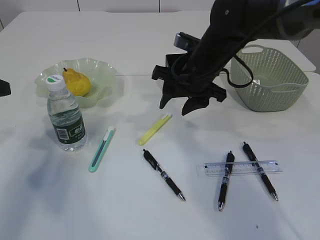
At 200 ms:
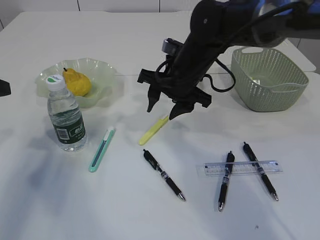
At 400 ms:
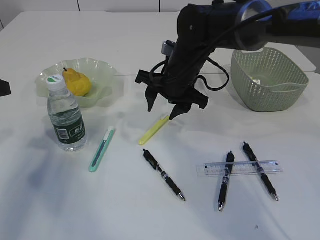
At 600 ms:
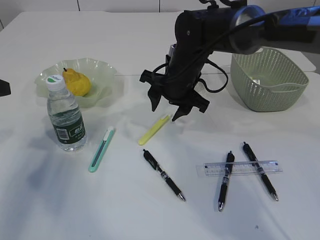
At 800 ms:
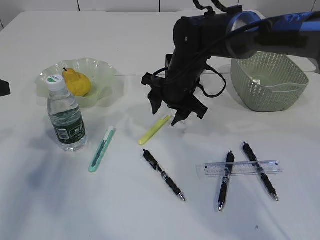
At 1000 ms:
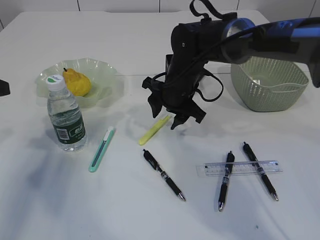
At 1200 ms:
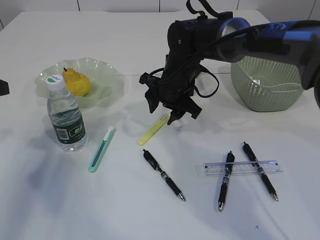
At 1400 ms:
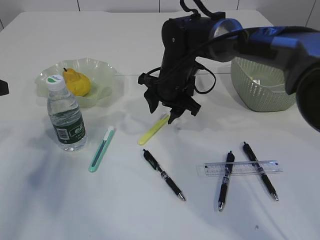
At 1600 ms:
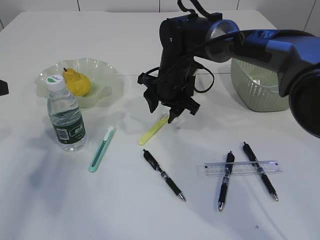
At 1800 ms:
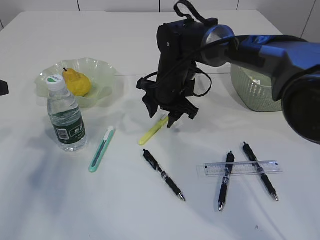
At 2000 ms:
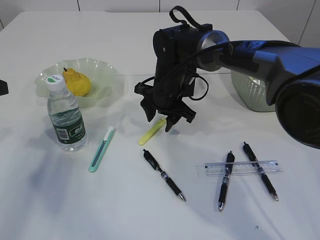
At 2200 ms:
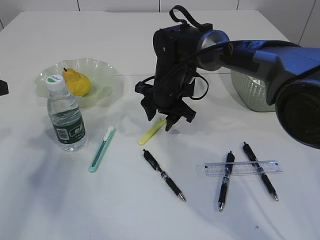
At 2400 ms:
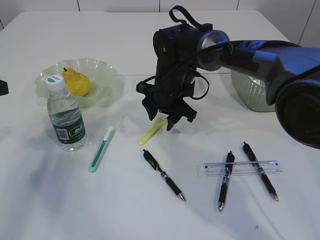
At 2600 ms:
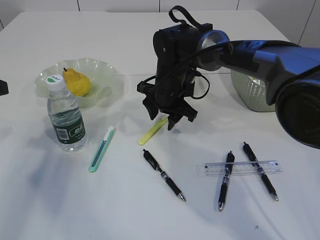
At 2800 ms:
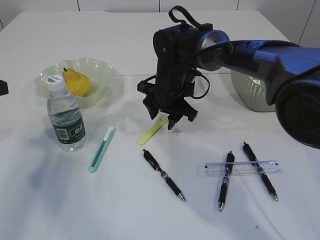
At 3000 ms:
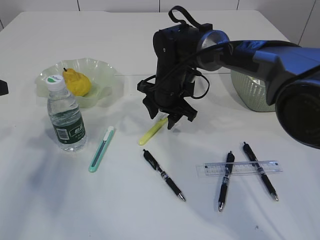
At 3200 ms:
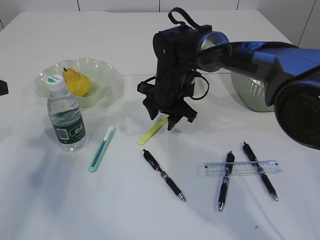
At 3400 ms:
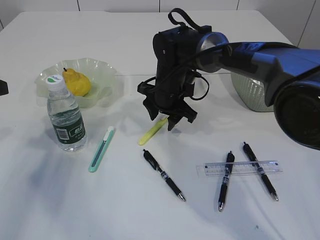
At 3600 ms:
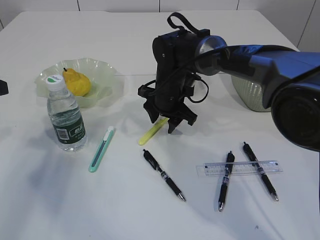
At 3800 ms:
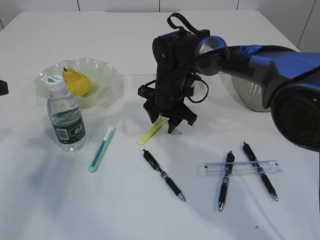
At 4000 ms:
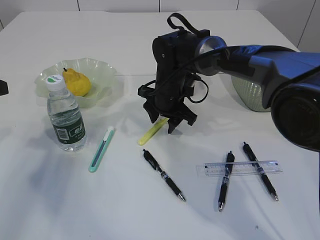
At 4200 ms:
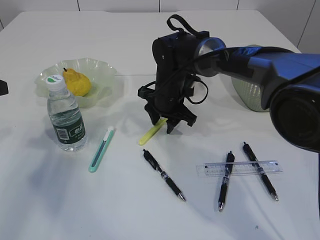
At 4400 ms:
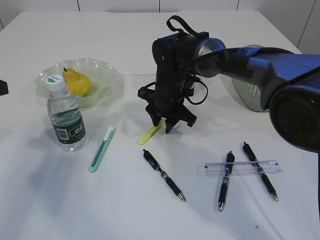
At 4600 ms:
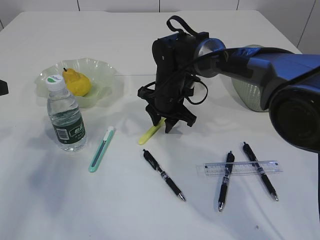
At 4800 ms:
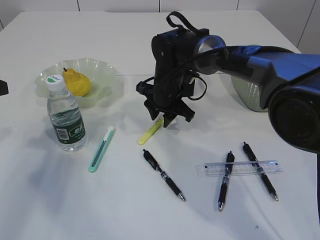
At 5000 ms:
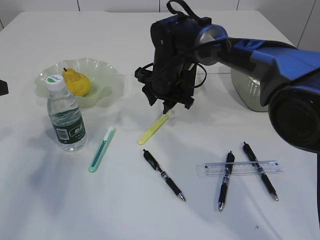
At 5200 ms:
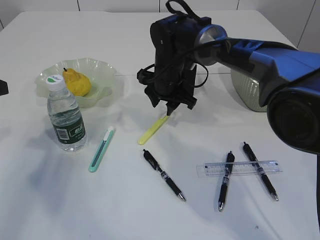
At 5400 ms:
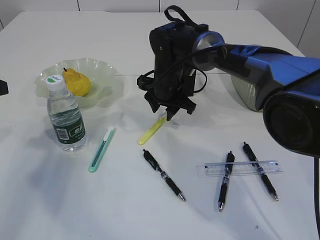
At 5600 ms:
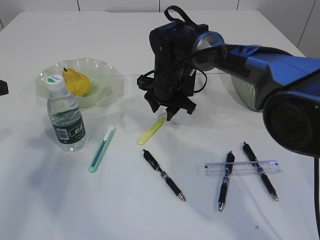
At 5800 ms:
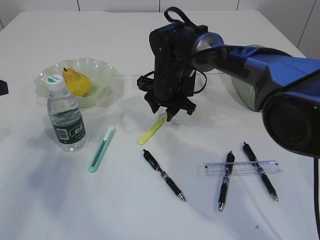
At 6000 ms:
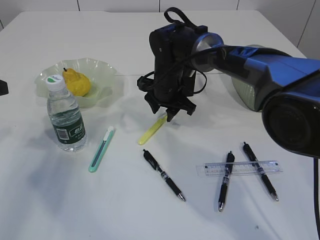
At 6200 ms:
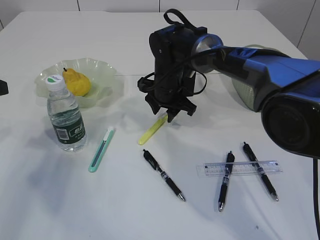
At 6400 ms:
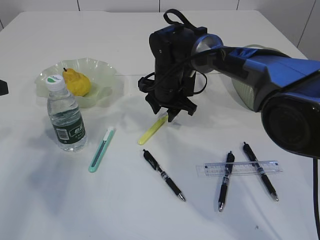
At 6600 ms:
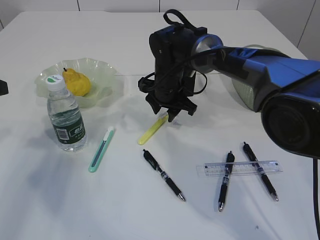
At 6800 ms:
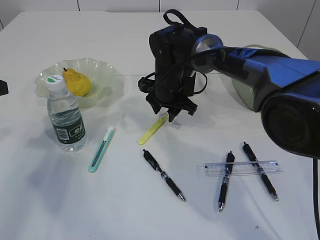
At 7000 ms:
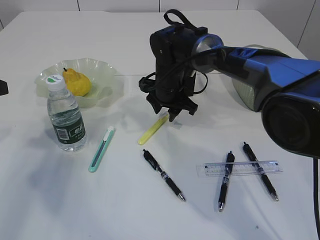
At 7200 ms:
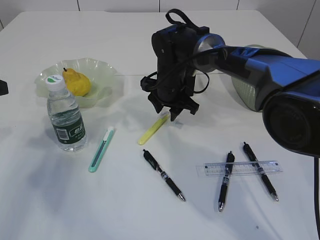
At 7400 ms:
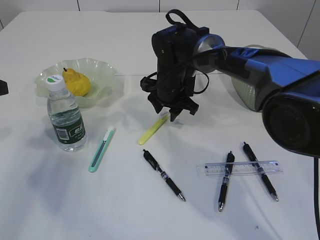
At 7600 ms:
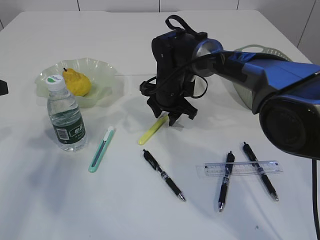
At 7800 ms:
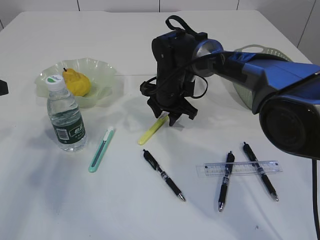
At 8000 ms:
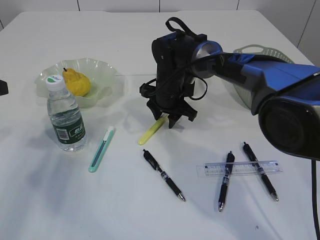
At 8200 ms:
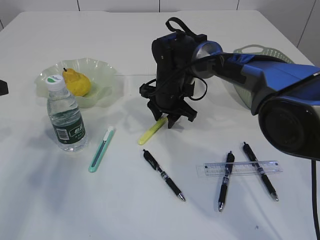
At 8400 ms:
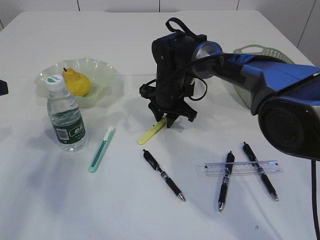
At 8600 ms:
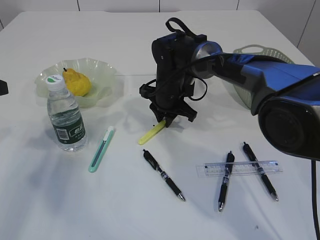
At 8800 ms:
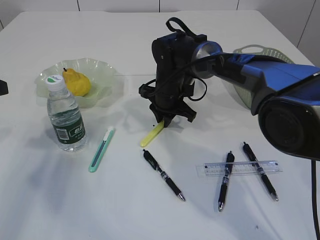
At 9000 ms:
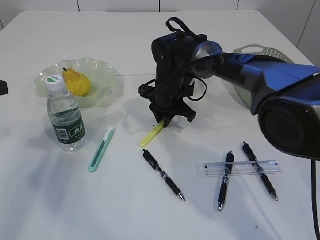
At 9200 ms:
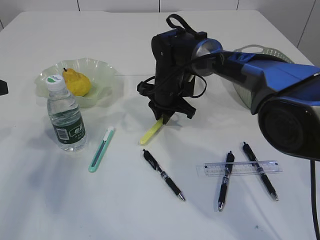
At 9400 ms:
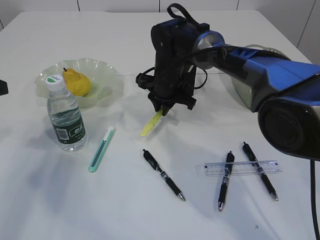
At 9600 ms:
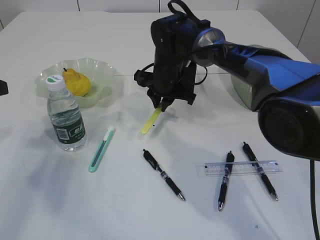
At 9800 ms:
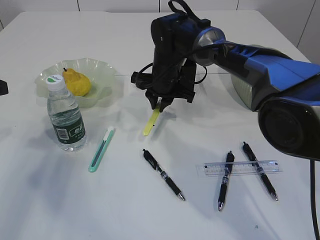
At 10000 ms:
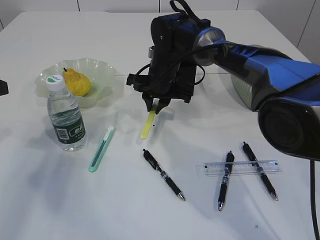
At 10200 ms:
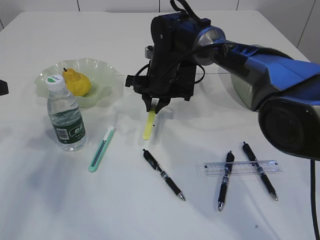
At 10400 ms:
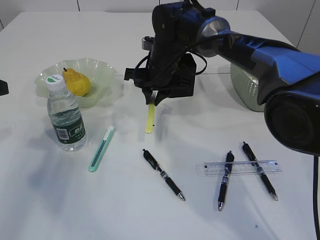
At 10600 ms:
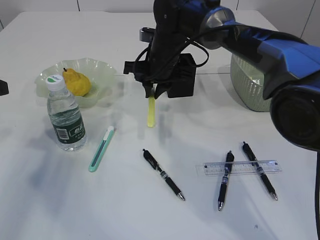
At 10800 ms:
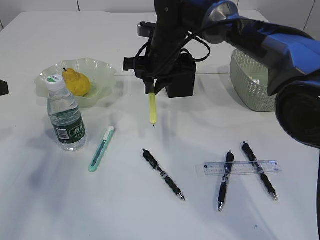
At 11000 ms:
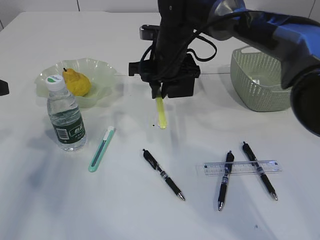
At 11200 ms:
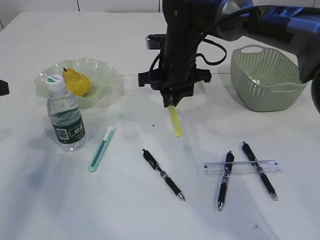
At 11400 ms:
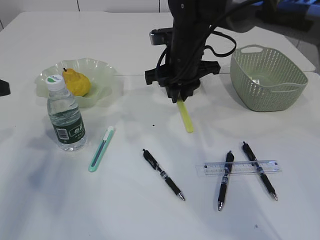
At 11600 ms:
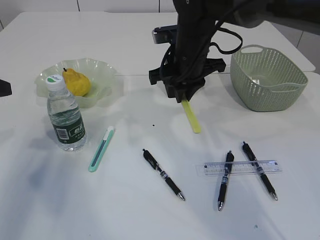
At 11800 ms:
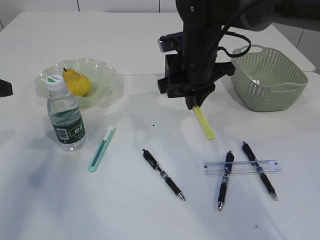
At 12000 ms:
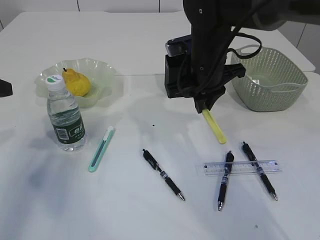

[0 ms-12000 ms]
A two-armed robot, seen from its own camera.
Step, 0 ms to 10800 ms: pick up the yellow knife.
0 ms to 1600 ms: The right gripper shifts by roughly 10 cm.
1600 ms to 7600 ms: The grippers stay close to where they were, moving slightly.
7600 ms to 9000 ms: The right gripper closes up.
9000 ms to 10400 ms: The right gripper shifts roughly 5 cm upward.
10400 ms to 12000 ms: The right gripper shifts approximately 10 cm backward and to the right.

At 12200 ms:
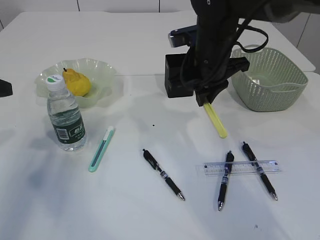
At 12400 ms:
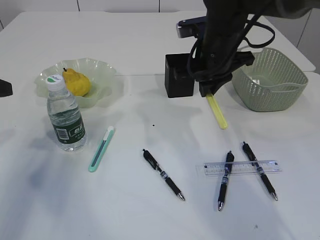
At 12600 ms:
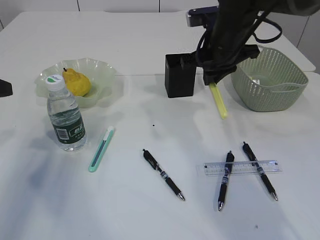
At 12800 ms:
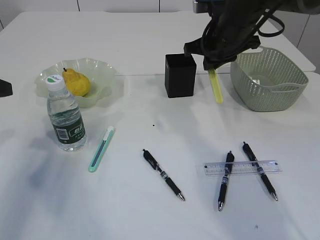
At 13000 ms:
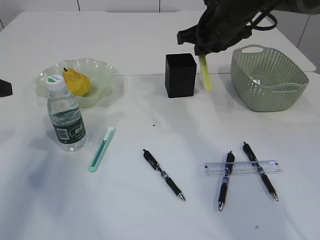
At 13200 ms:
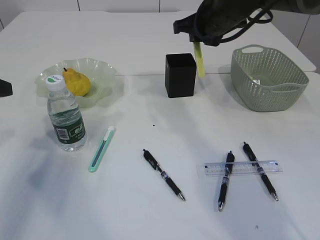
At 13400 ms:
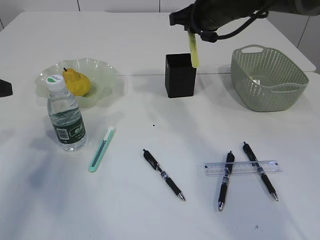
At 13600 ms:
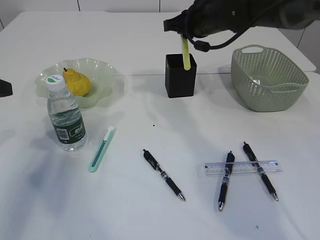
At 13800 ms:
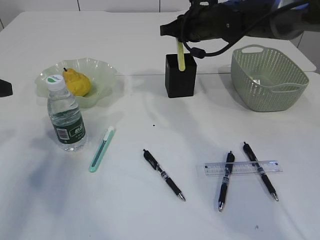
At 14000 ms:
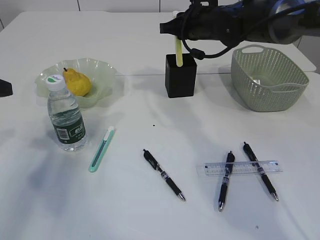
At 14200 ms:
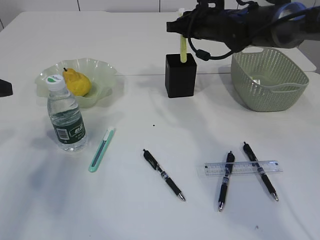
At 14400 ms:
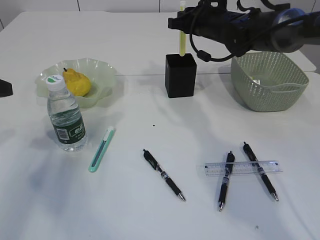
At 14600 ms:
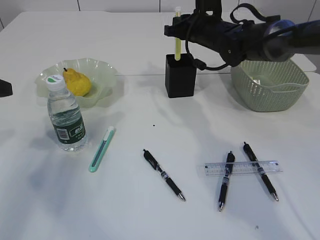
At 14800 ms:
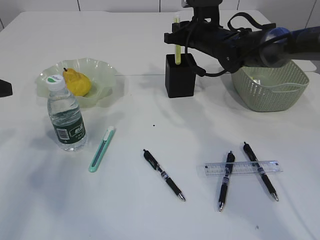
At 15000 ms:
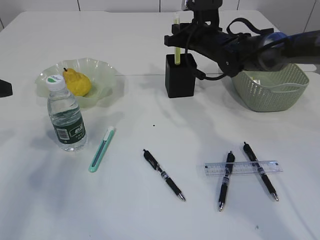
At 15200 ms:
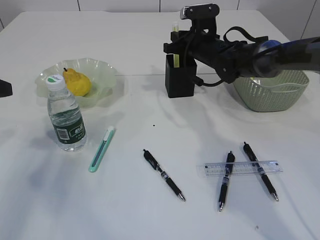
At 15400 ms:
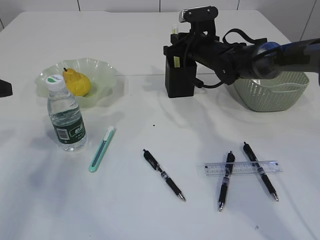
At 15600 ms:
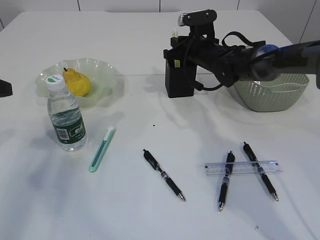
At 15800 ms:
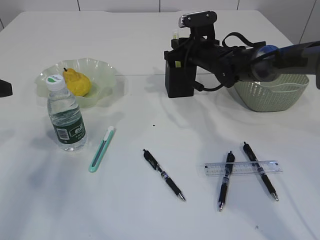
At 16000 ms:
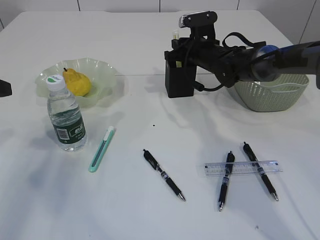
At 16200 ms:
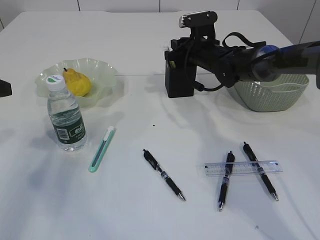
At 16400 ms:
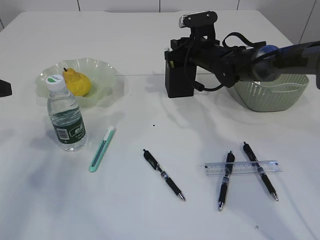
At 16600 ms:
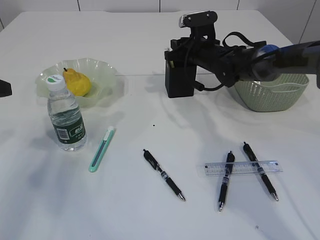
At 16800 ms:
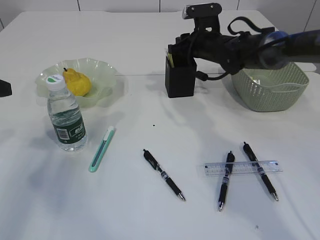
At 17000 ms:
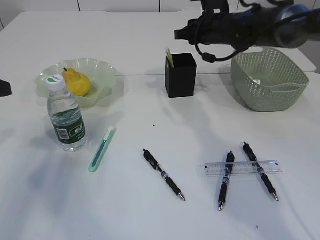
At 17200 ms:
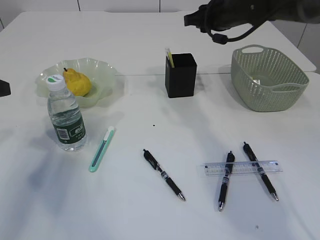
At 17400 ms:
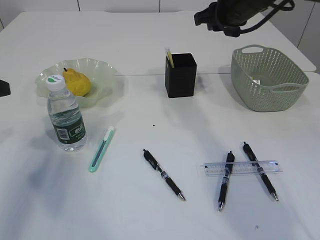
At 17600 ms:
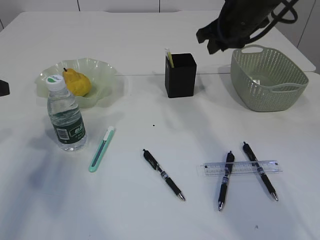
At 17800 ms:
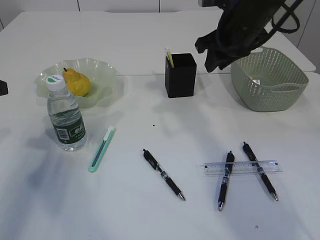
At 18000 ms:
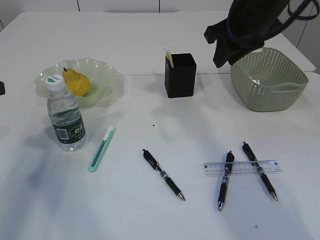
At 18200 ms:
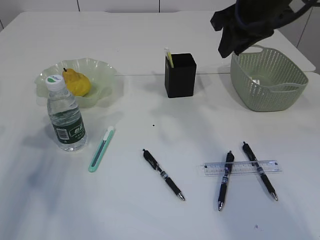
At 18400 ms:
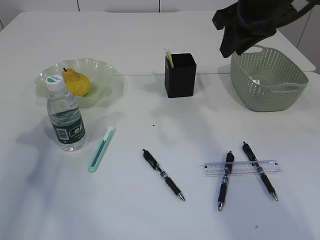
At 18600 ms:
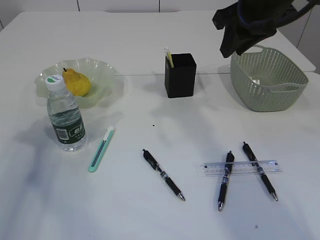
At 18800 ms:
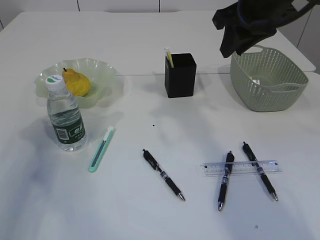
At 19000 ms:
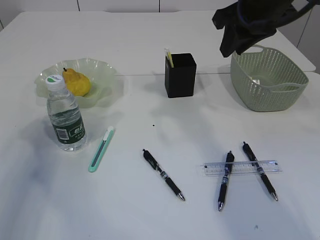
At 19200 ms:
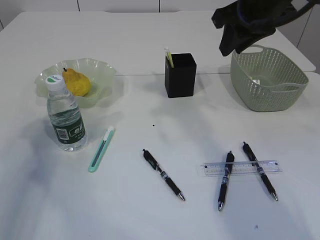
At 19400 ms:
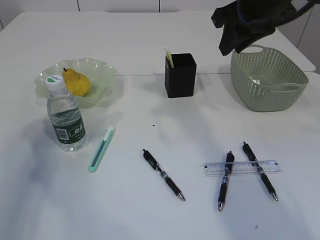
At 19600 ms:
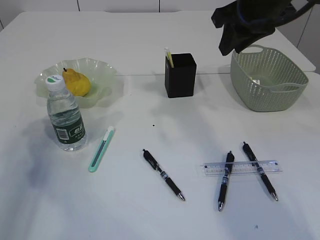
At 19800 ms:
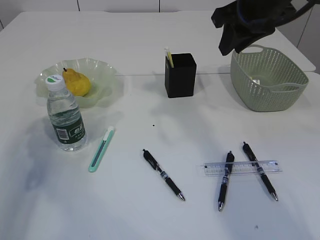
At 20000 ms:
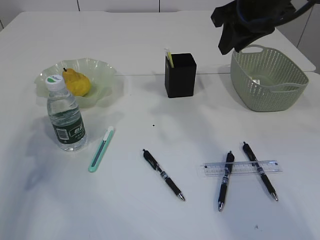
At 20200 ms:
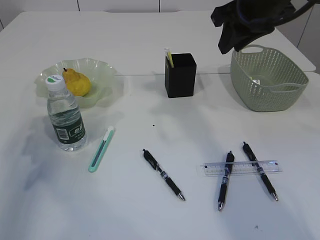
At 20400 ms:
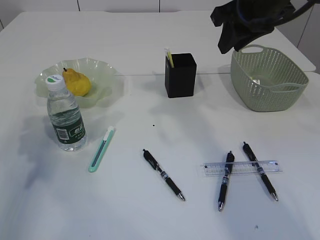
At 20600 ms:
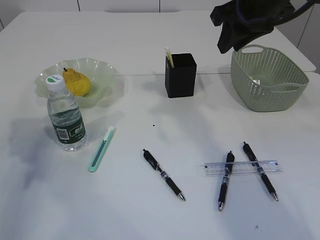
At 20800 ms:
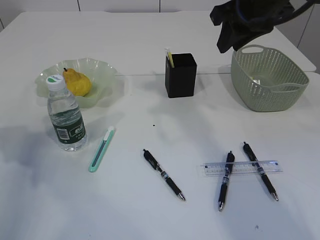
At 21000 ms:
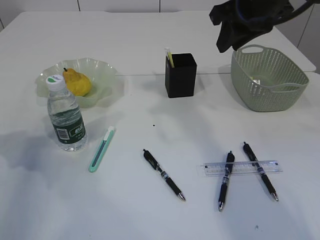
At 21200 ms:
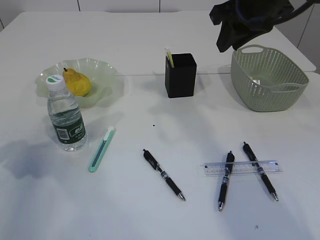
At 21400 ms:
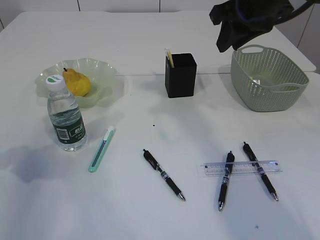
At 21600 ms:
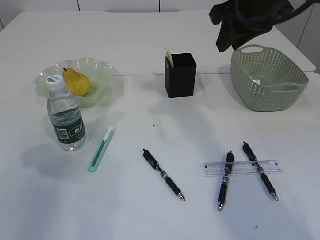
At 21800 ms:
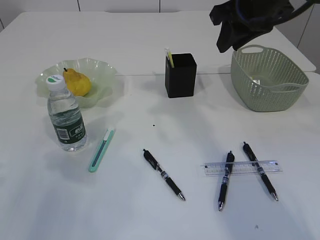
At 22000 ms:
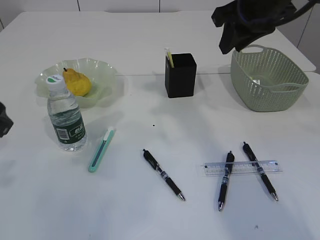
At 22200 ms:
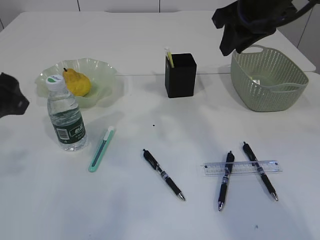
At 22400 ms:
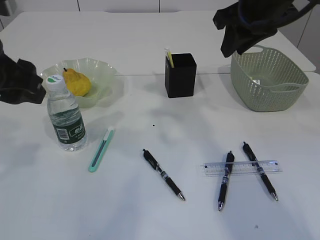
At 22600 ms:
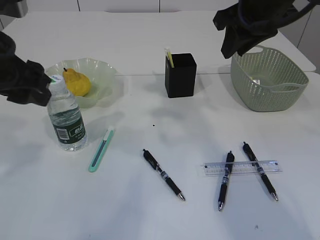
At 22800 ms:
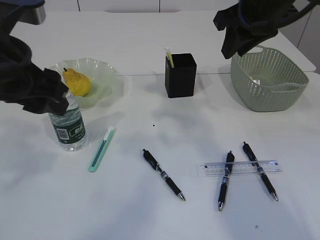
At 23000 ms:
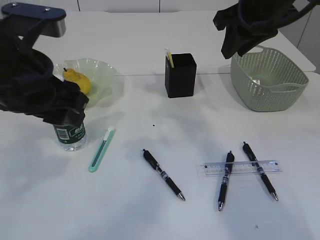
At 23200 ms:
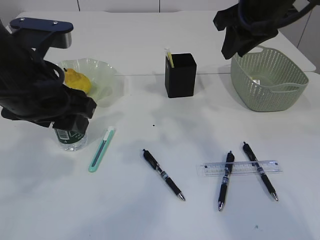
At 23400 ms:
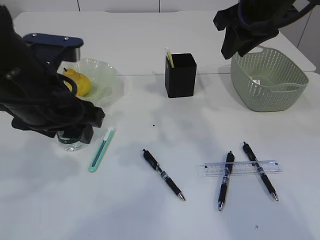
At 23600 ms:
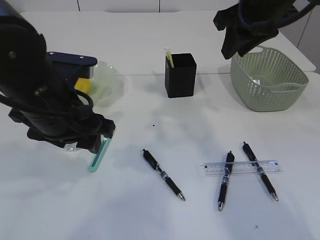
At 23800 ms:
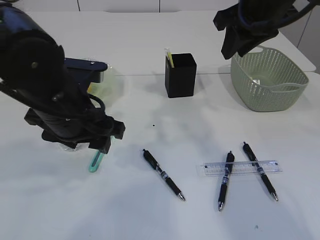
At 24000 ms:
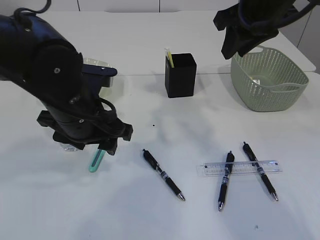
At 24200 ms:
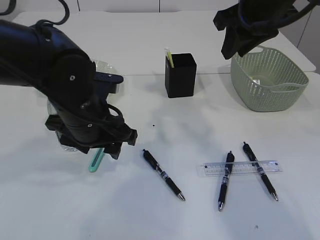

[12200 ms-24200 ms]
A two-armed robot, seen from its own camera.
Step, 12200 ms to 16800 ms: place the yellow knife into the pen holder.
12200 ms to 13800 ms: The right gripper shifts some 10 cm forward.
13800 ms to 15200 ms: The right gripper shifts some 5 cm downward.
15200 ms to 16600 ms: Both grippers stay about where they are.
16600 ms to 18200 ms: The right gripper moves upward and backward, approximately 25 cm.
21200 ms to 22600 ms: The left gripper shifts some 20 cm to the right and upward.
22600 ms to 24200 ms: The left gripper is displaced downward and to the right by some 15 cm.
